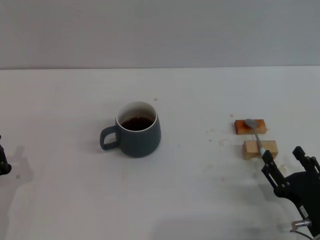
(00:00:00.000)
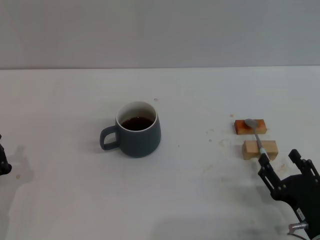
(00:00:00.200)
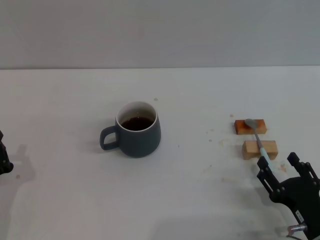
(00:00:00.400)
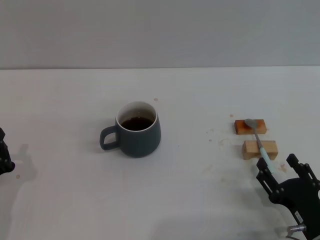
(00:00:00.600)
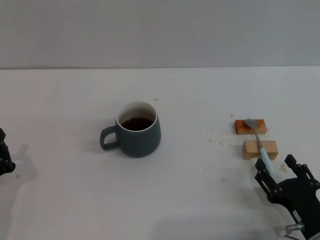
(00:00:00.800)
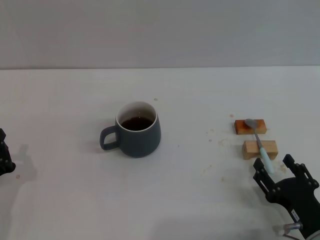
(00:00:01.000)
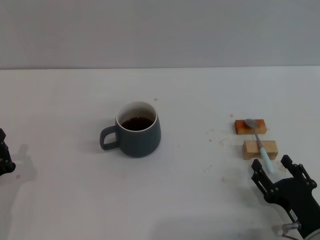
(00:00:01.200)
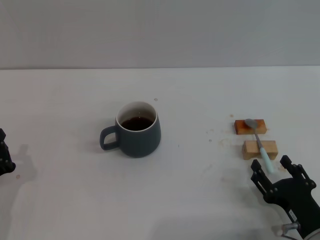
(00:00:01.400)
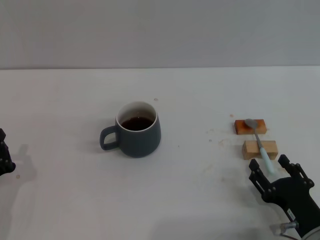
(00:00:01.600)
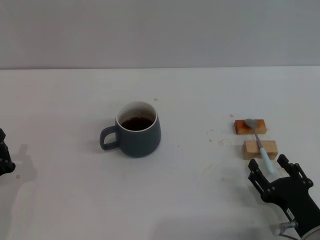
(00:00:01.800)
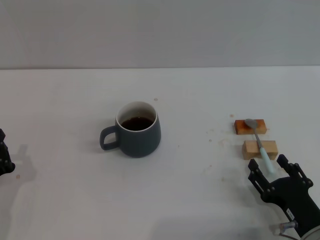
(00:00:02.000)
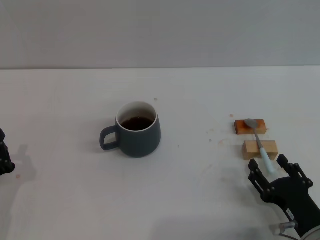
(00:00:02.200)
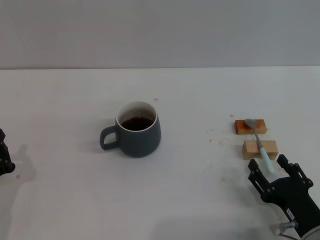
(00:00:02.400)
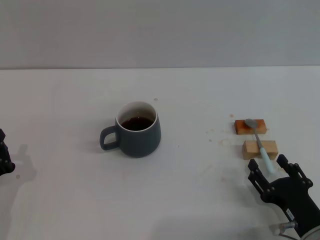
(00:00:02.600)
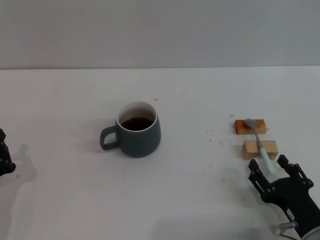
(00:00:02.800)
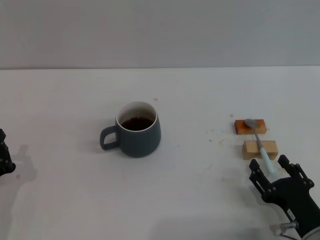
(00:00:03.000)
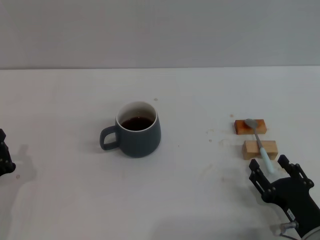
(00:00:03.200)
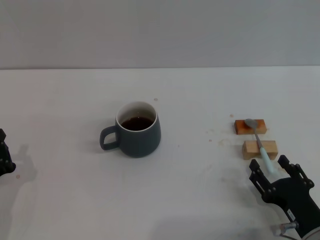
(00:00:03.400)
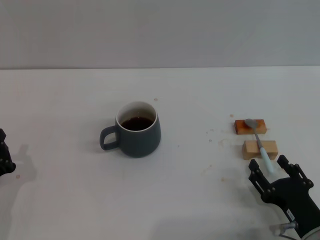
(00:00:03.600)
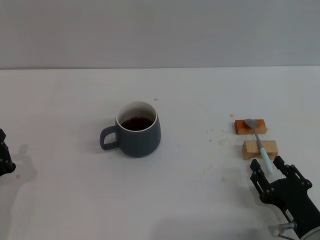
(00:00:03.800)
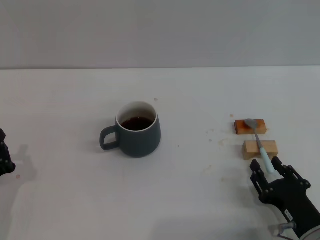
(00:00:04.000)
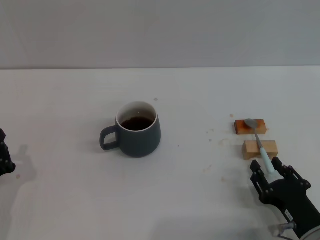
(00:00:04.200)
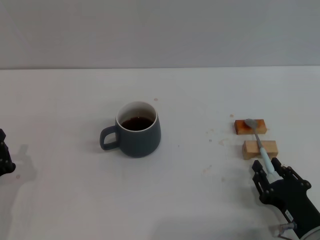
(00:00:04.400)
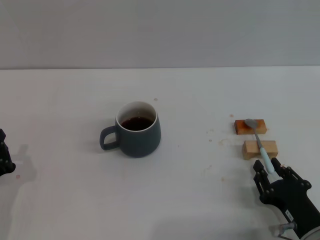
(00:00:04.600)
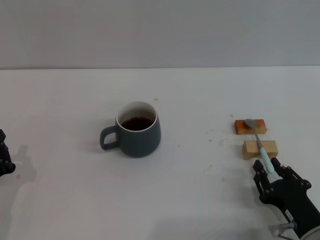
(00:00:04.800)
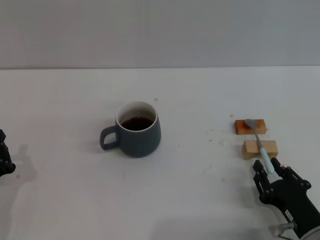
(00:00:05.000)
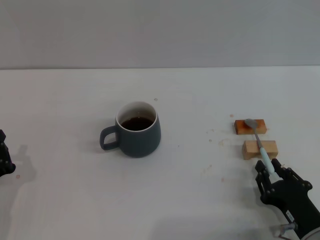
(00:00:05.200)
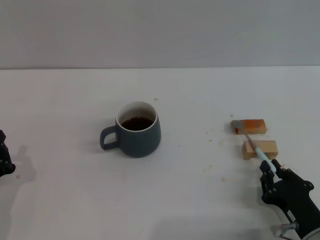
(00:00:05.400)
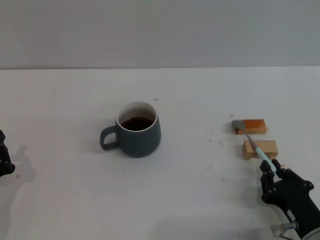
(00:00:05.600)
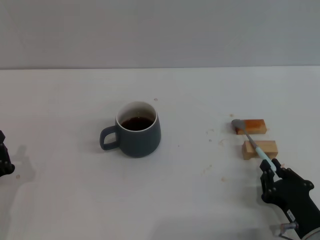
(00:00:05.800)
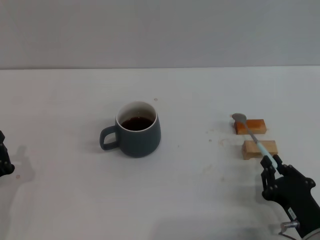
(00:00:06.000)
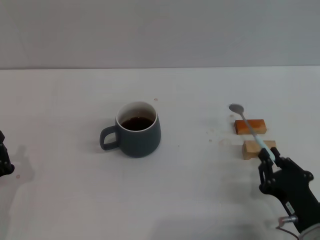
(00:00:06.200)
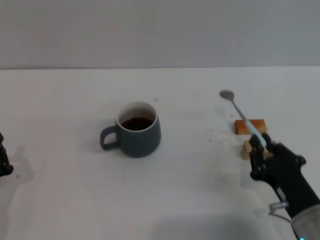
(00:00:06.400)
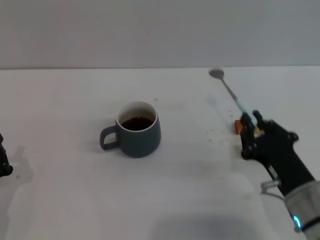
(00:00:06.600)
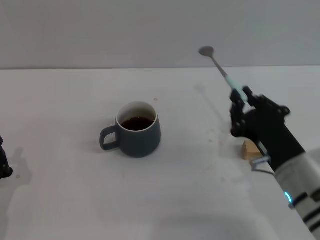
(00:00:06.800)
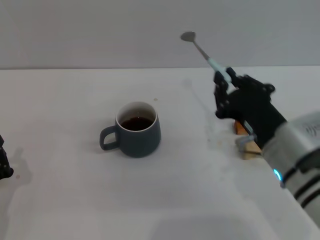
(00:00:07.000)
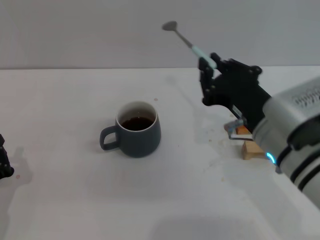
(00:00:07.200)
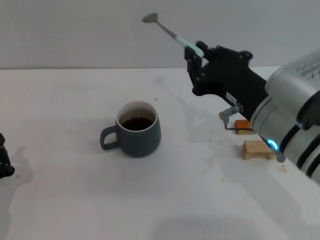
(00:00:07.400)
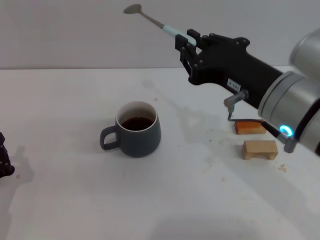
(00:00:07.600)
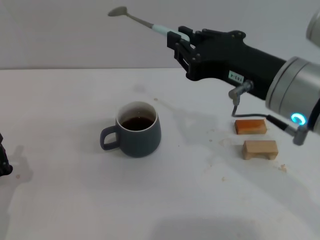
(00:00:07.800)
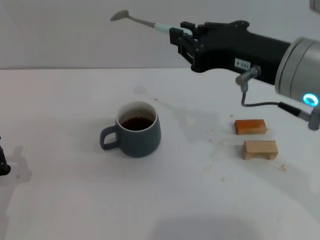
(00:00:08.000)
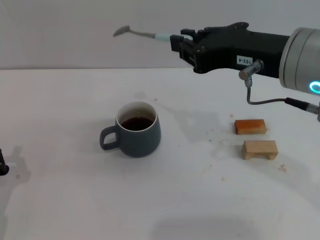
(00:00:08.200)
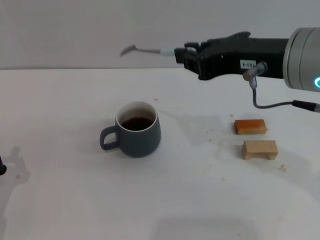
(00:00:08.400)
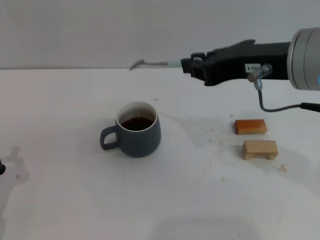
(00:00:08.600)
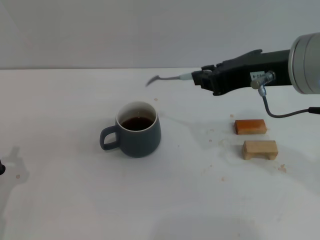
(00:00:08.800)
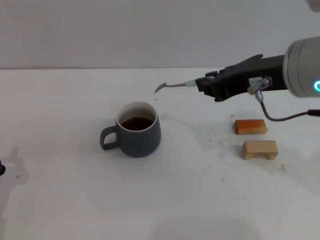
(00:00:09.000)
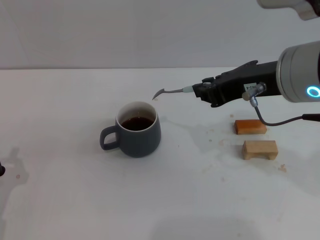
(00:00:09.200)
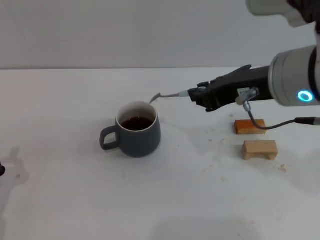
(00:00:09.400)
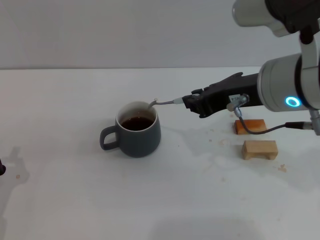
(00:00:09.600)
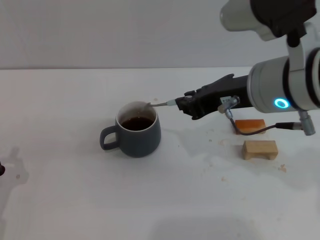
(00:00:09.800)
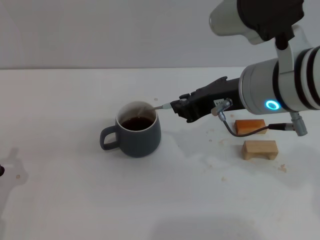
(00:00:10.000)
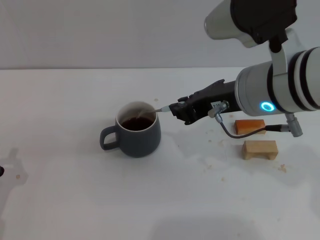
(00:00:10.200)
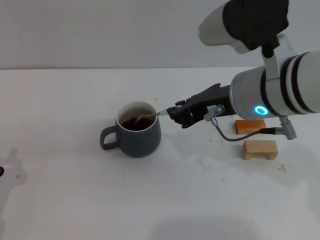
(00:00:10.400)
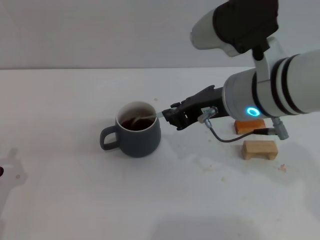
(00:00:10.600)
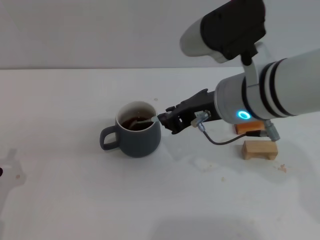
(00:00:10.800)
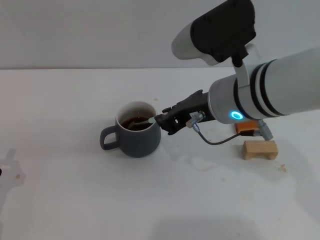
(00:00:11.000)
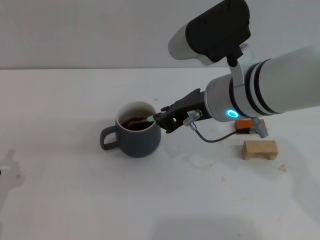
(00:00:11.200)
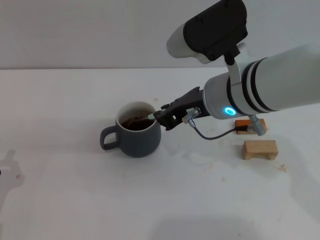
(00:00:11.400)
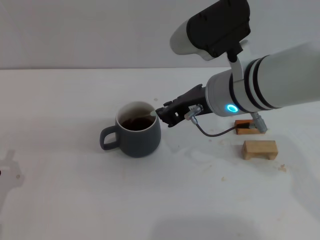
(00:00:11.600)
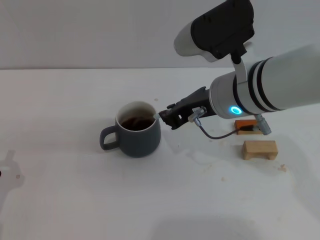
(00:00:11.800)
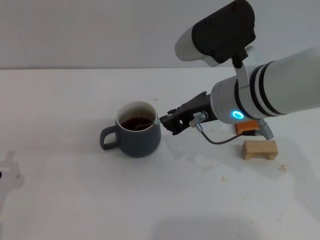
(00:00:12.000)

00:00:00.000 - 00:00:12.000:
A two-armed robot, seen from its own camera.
Task of the whole recording: Move the grey cup to the center, lift the blue spoon, stir it three times in the cup, and put the spoon into the cup.
Step, 00:00:00.000 - 00:00:06.400: Pick up the spoon with the right gripper.
00:00:00.000 - 00:00:01.600: The grippers stay close to where they were, moving slightly.
00:00:01.600 - 00:00:03.000: Both grippers stay about where they are.
00:00:03.000 - 00:00:04.400: The right gripper closes.
00:00:04.400 - 00:00:06.000: The right gripper closes its fingers.
00:00:06.000 - 00:00:07.600: The right gripper is displaced upward by some 20 cm.
00:00:07.600 - 00:00:09.000: The right gripper travels upward by approximately 5 cm.
00:00:09.000 - 00:00:10.400: The right gripper moves roughly 5 cm.
00:00:10.400 - 00:00:12.000: The grippers move only a little.

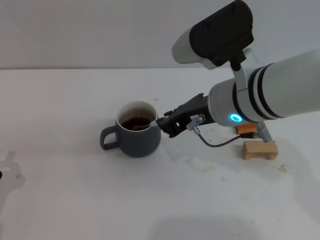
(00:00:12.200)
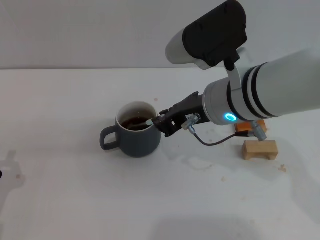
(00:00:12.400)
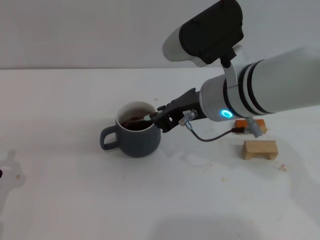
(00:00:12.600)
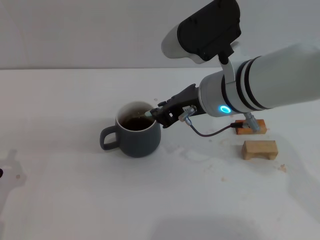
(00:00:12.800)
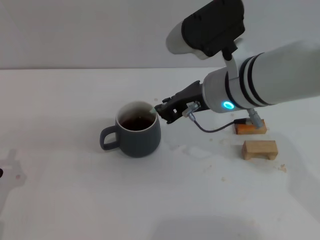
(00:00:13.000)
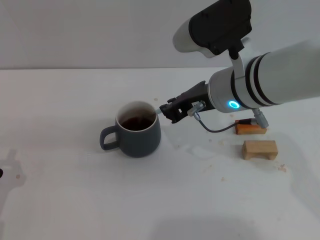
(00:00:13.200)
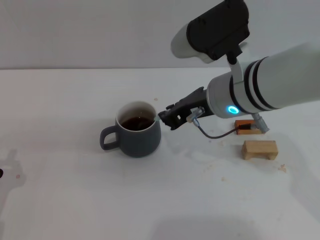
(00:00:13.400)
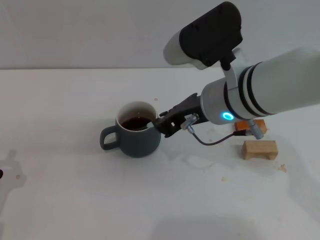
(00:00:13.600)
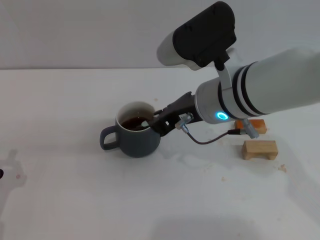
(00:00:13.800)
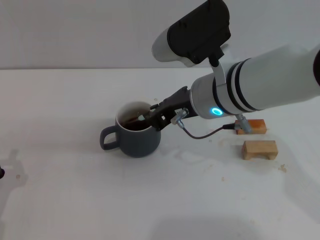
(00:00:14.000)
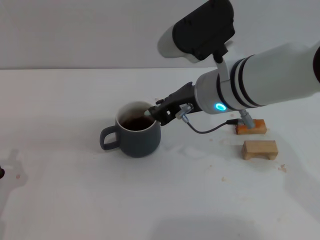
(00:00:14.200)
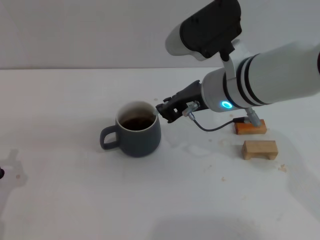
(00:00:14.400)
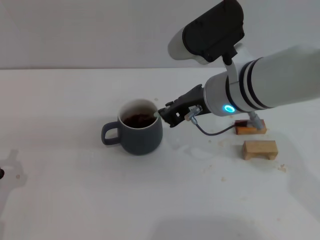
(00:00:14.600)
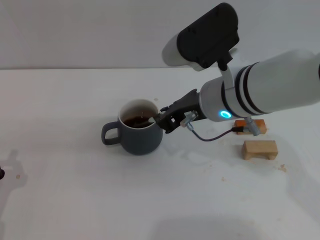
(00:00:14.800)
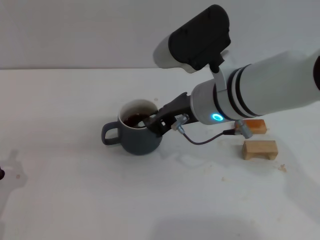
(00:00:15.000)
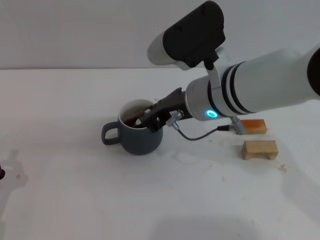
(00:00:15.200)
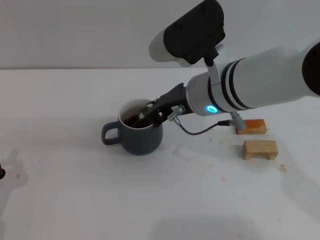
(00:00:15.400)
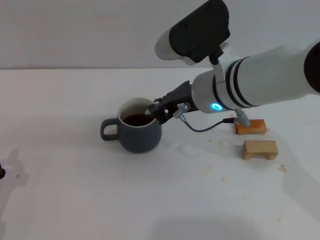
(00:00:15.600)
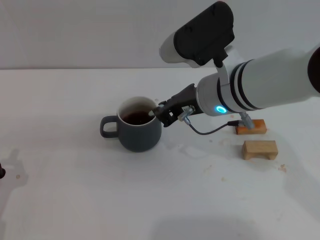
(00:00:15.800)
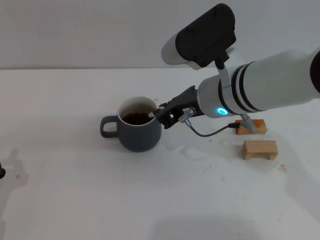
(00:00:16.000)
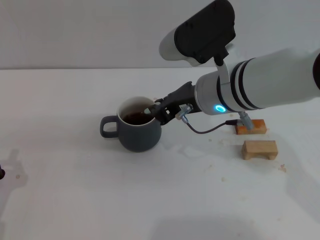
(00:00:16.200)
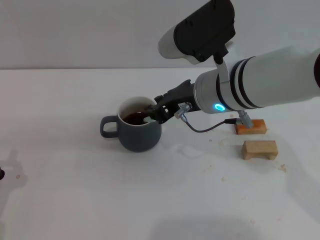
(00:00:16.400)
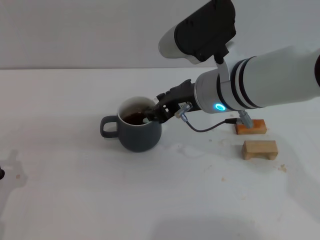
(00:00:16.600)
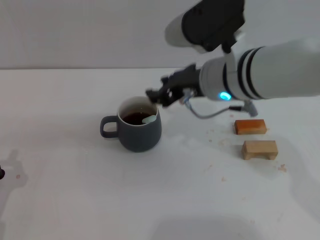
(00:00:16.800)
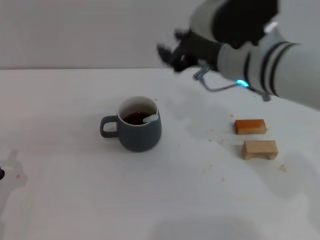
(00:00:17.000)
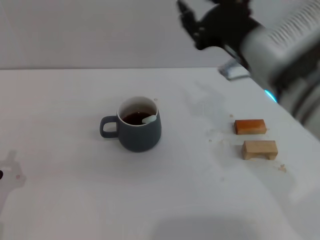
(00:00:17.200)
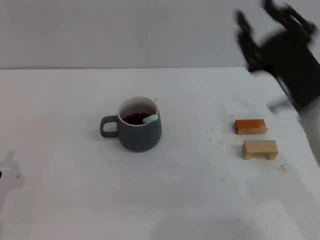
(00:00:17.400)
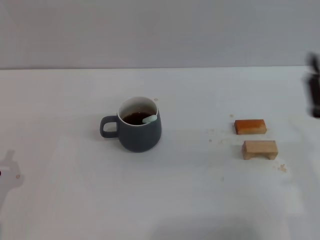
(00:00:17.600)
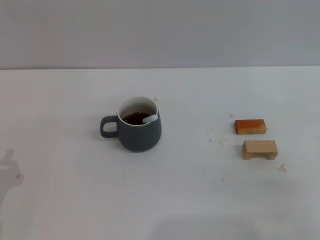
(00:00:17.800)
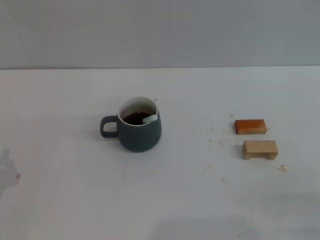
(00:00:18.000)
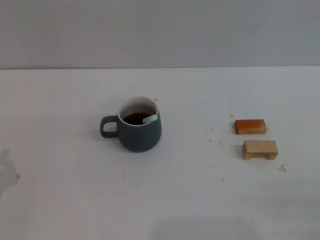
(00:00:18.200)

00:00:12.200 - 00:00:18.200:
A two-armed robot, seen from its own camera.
Task of the whole recording: Move the grey cup to the center, lift the blue spoon, stir it three times in the cup, and put the spoon into the cup.
Step, 00:00:12.200 - 00:00:16.600: Stir the coffee in the cup with the right gripper.
00:00:12.200 - 00:00:16.600: The grippers stay close to where they were, moving slightly.
00:00:16.600 - 00:00:18.200: The right gripper shifts some 35 cm to the right, backward and downward.
